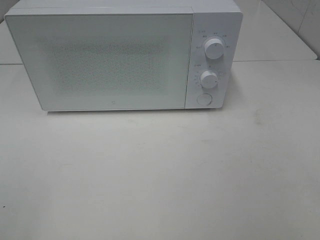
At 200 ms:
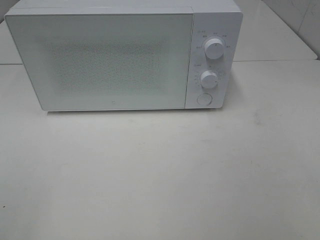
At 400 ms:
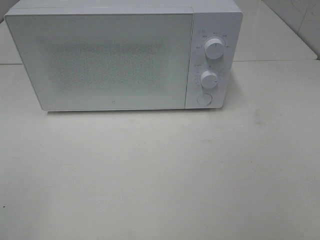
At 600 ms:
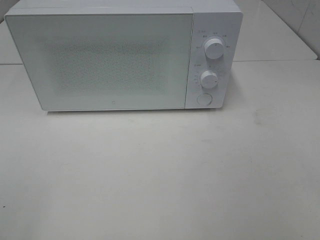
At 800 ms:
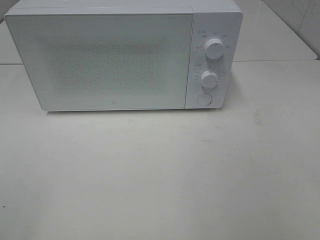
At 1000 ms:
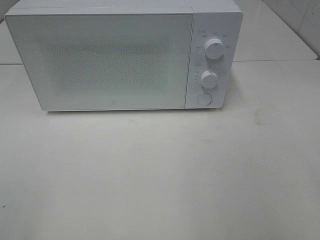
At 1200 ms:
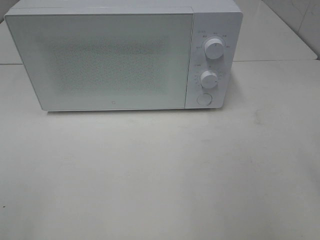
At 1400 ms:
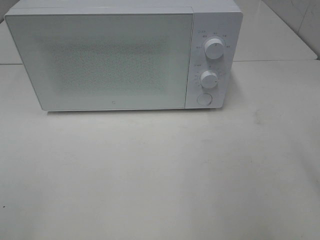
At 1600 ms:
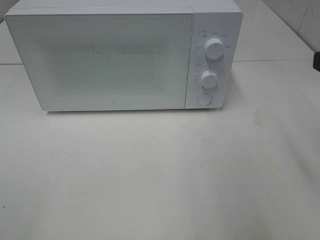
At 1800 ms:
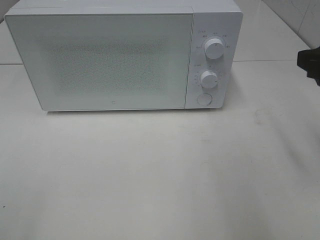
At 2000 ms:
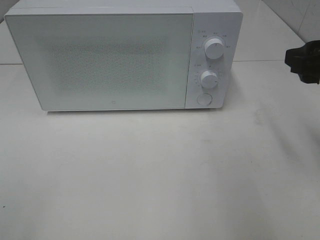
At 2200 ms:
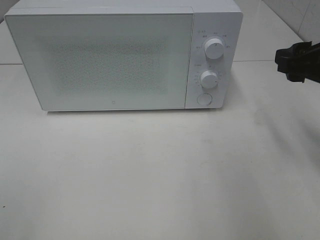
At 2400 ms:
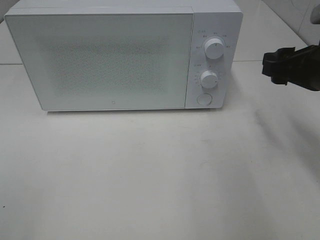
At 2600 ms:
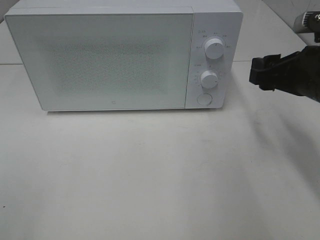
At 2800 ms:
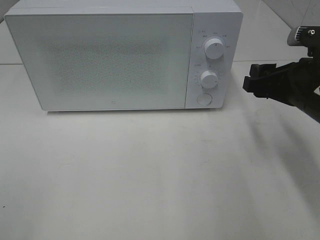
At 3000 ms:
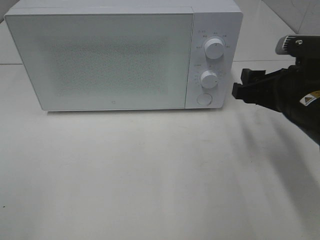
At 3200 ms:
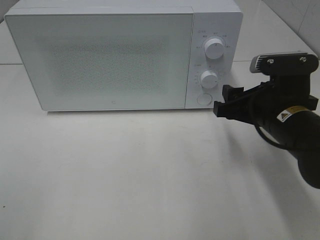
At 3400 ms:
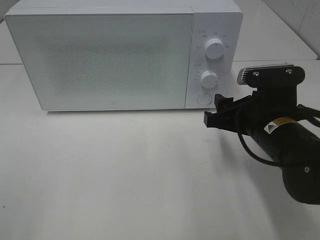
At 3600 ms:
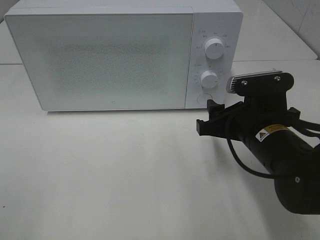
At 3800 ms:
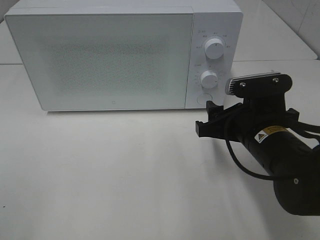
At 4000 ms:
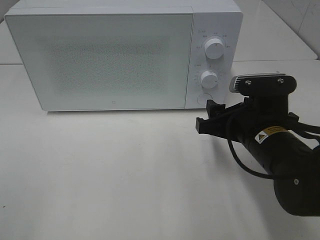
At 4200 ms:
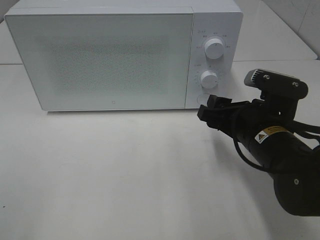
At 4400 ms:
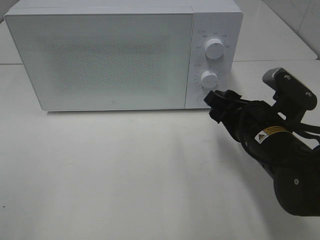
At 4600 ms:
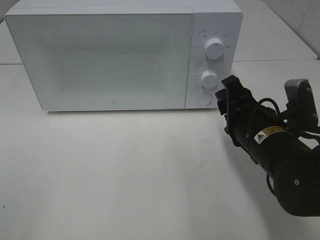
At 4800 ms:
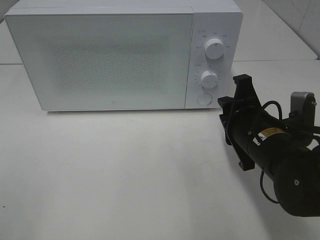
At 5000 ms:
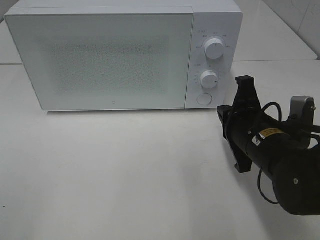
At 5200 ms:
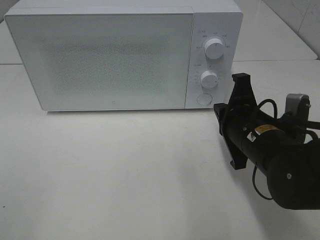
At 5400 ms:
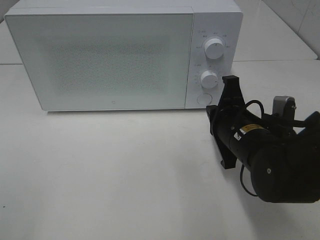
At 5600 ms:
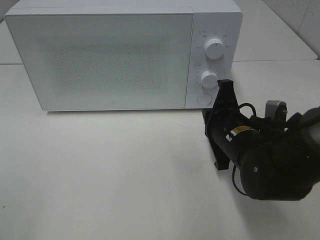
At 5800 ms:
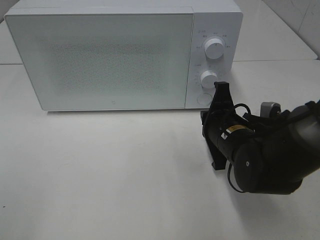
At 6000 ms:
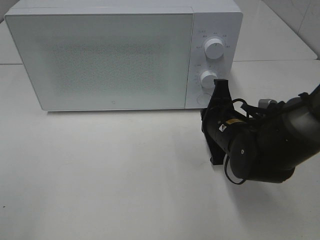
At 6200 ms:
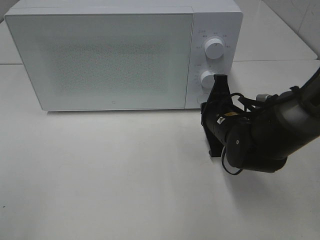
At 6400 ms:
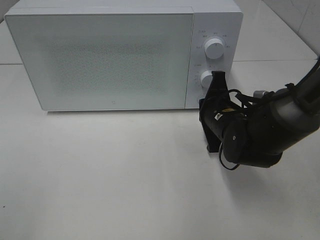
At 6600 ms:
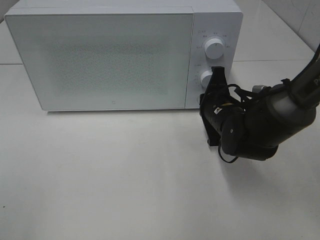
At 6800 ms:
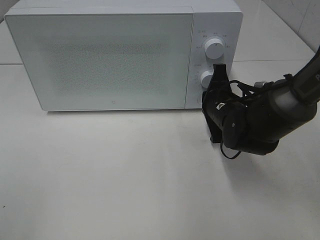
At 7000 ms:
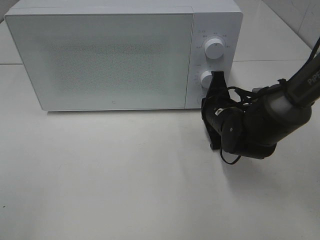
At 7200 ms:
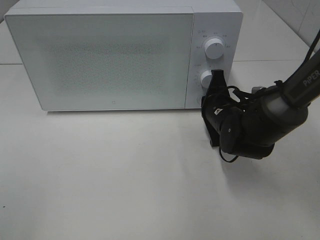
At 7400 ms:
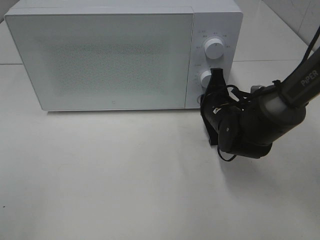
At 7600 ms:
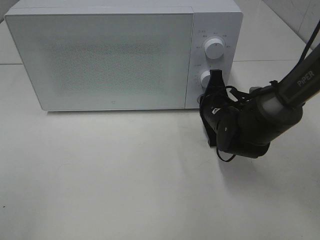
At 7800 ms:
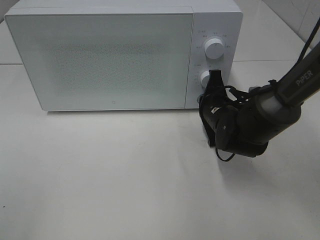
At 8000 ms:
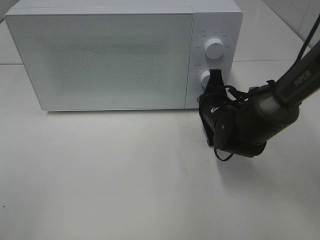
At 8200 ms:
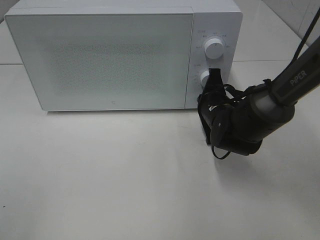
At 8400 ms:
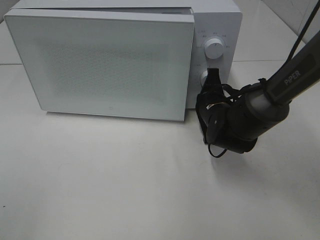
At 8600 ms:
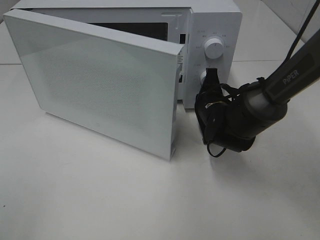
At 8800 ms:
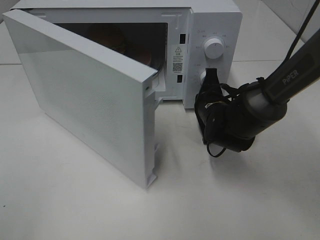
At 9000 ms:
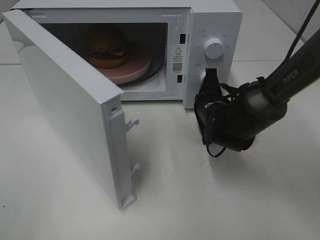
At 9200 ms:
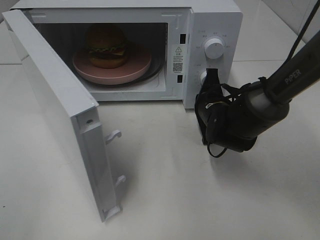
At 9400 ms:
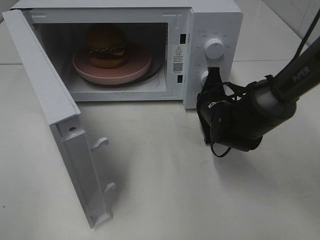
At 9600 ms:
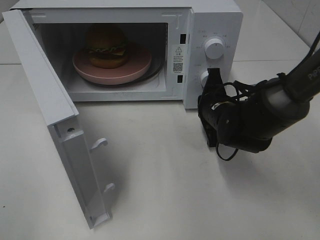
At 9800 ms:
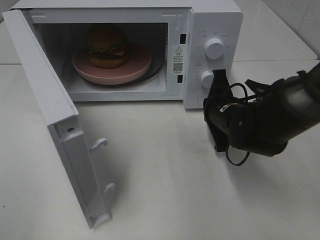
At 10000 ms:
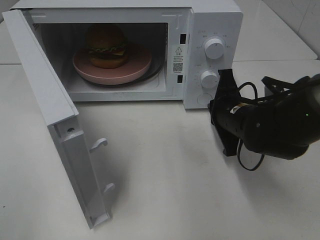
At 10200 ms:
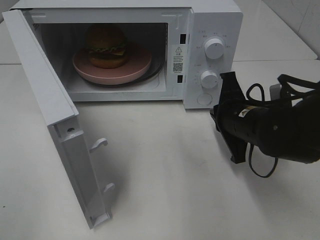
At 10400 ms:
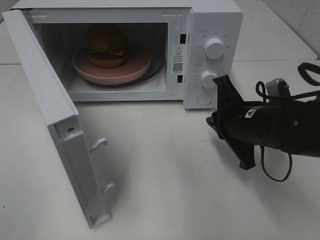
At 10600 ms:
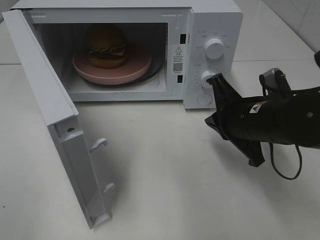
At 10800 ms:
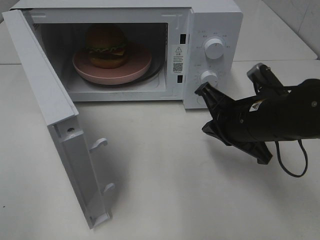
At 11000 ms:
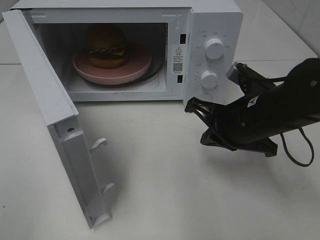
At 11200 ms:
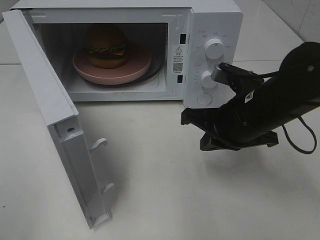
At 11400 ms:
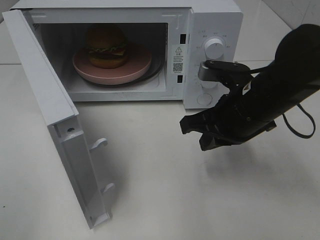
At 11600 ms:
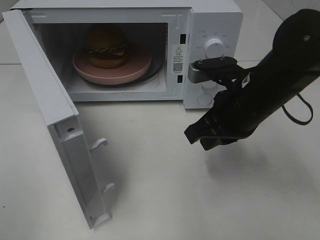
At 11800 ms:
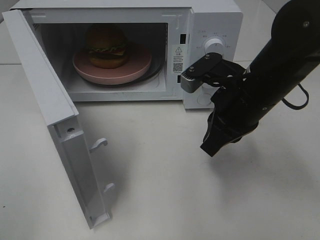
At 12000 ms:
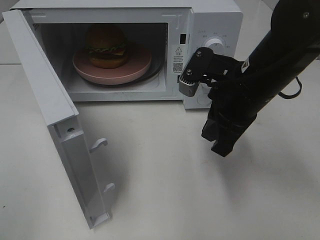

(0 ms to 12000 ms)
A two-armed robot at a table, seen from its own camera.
Task of the whole recording: Heat the burger.
Step, 0 ms - 9800 ms: Right hand: press the switch.
1600 ms - 3000 ms: The right gripper goes some 15 cm downward, forward and to the left.
3000 ms - 4400 ms: The right gripper changes place by about 5 cm.
4400 ms - 6000 ms: The right gripper moves forward, some 5 cm, and closes its fingers.
6000 ms - 7600 ms: The right gripper goes some 5 cm forward.
9000 ms - 10400 ms: The right gripper is displaced backward and upward by approximately 10 cm.
10400 ms - 12000 ms: The right gripper travels upward by approximately 5 cm.

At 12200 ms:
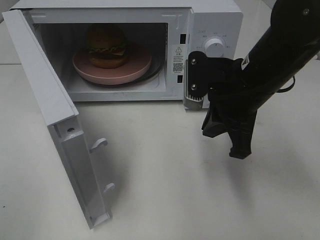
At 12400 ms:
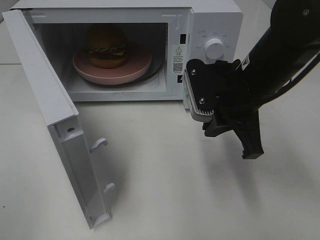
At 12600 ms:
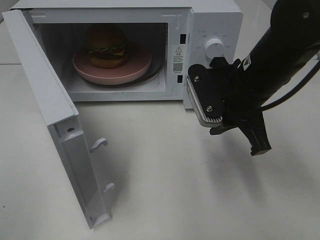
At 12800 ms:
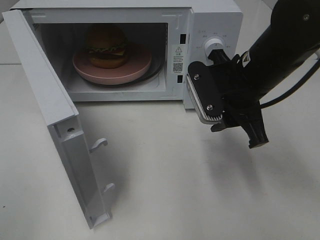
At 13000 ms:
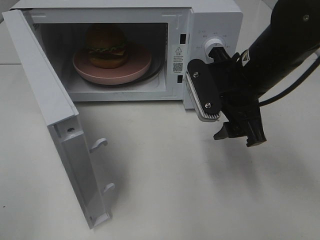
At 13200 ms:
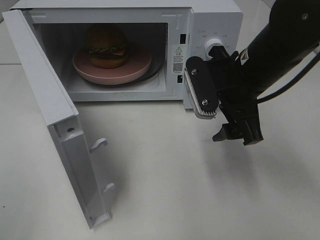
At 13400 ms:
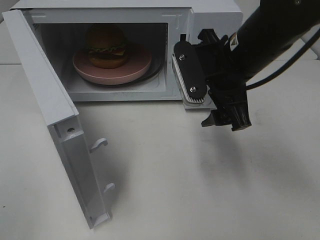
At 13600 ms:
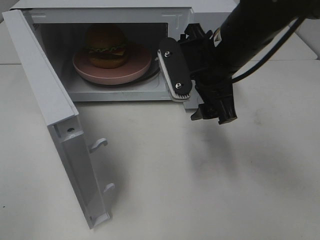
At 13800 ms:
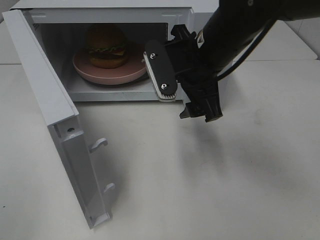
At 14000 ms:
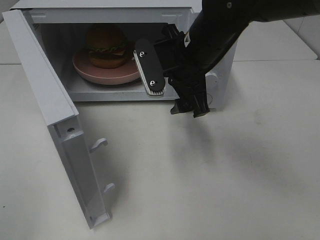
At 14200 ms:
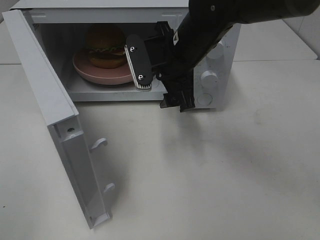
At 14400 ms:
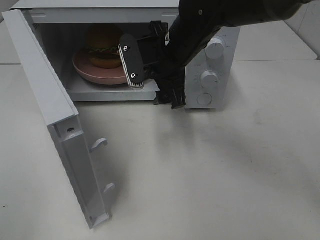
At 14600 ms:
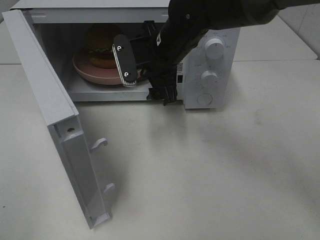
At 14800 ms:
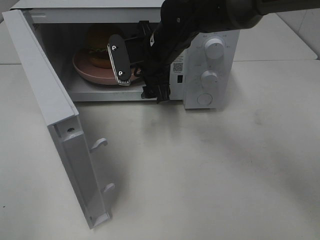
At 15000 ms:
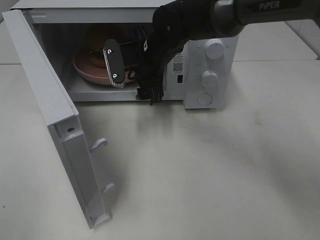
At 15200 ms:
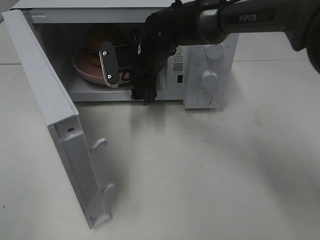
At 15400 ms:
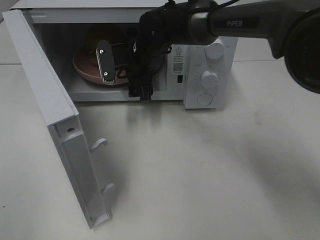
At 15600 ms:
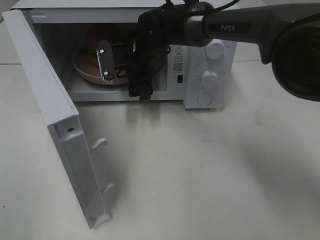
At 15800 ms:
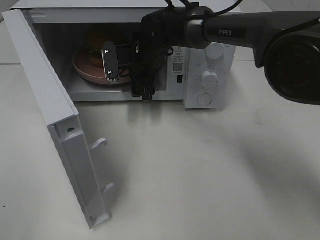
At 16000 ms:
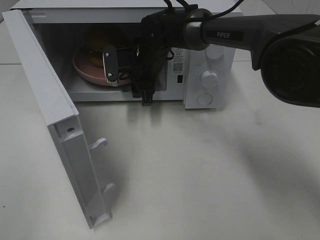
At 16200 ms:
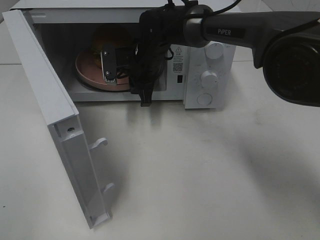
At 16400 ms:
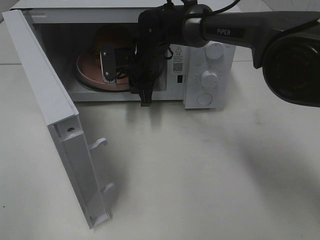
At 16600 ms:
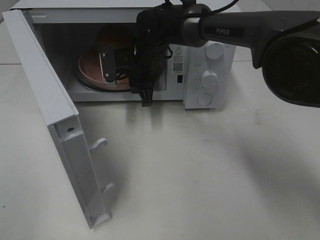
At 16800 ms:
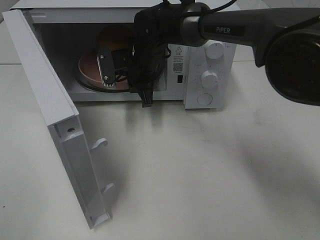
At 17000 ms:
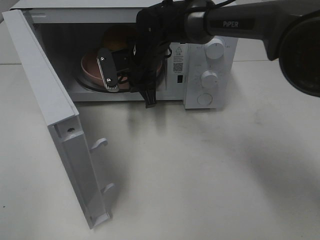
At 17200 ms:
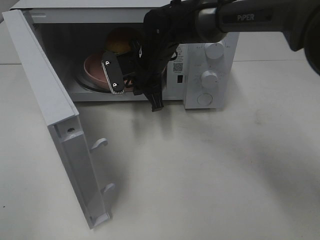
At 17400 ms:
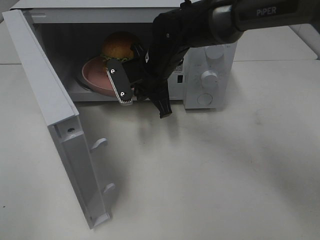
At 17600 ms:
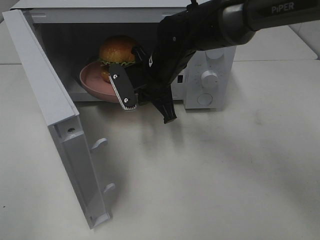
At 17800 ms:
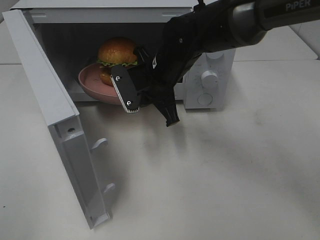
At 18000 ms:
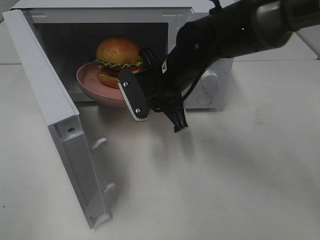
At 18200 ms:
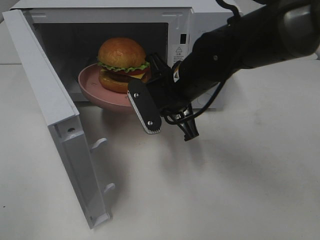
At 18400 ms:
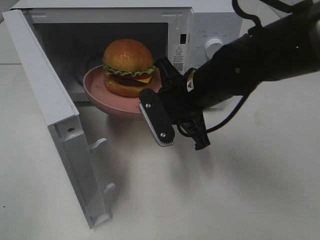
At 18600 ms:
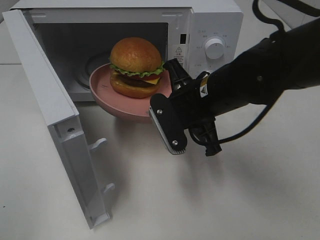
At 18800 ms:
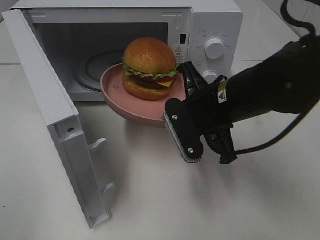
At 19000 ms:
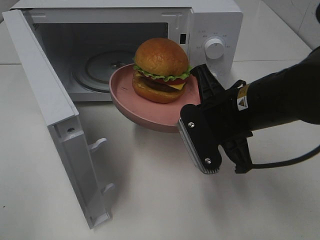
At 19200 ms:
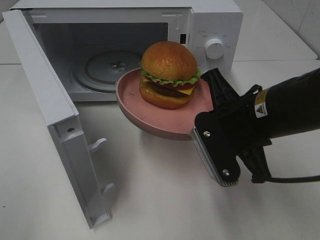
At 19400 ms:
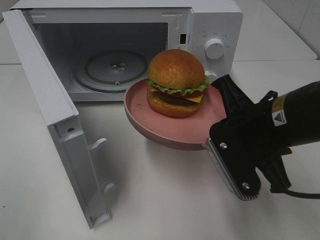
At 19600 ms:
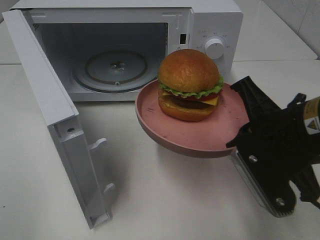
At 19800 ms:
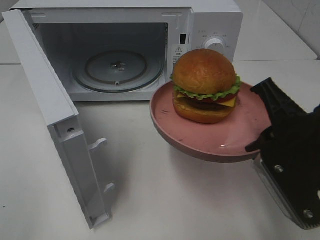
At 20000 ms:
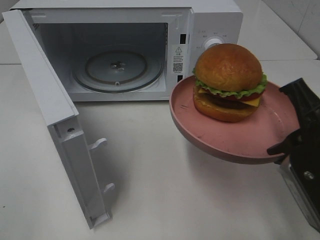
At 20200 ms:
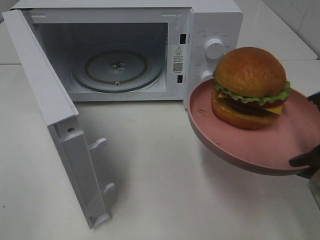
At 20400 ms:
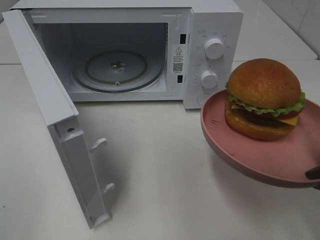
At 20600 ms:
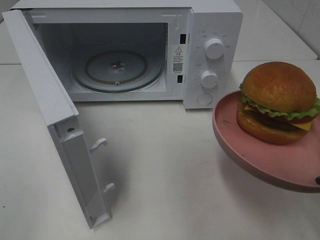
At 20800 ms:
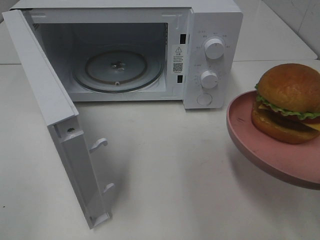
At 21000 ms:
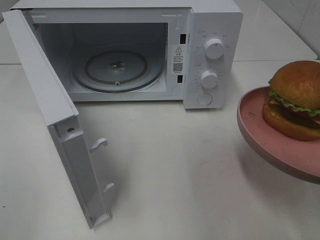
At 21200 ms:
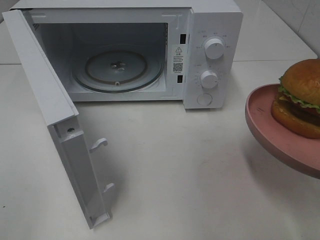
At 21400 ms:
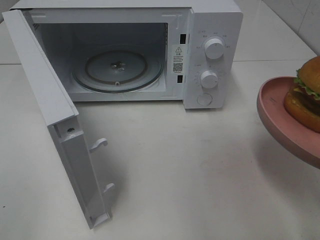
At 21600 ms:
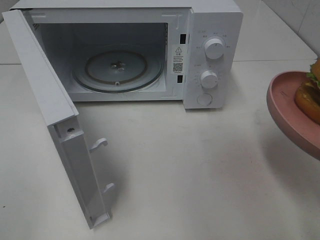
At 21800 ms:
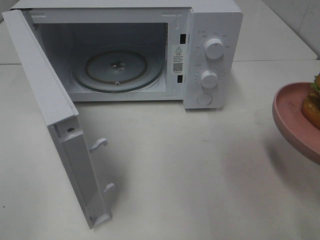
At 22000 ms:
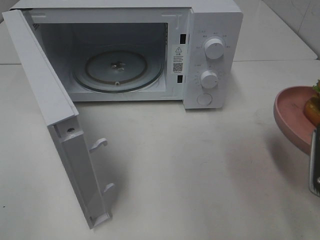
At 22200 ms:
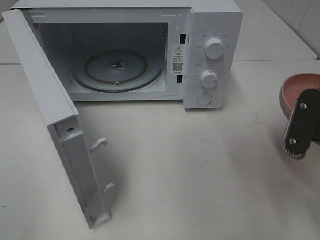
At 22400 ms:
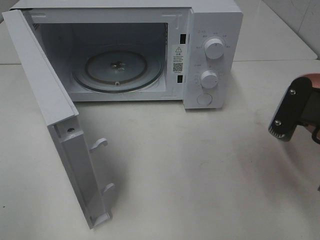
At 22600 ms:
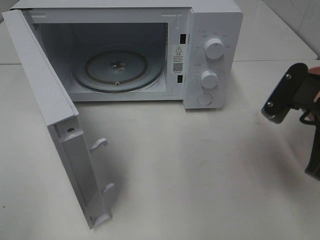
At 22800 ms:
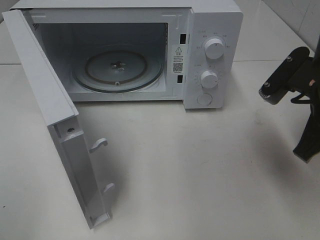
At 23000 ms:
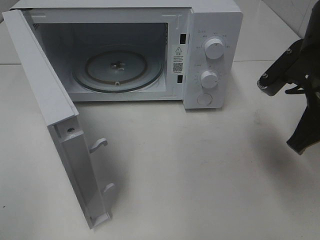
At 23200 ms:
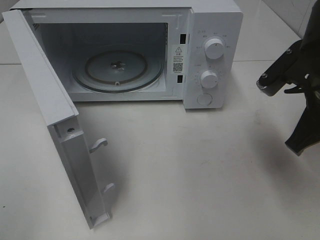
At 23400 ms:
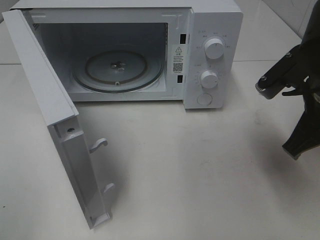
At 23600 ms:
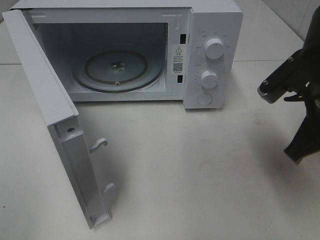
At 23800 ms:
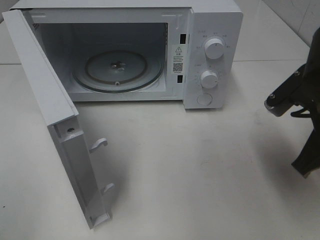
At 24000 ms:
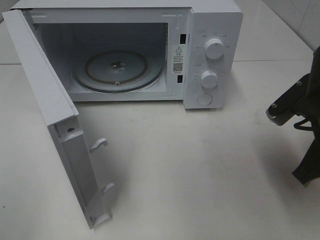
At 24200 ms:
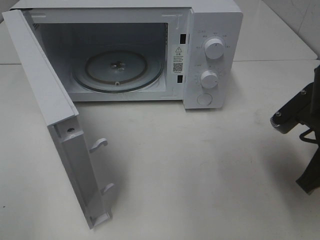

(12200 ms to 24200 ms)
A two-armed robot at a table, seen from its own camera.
Task of the whole recording: Heat the burger.
Step, 12200 ms - 16800 ms: Right hand: grab the plate with the hamburger.
12200 ms - 13800 ms: The right gripper heads to the left, covering approximately 5 cm, and opens its fingers.
13800 ms - 15200 ms: The right gripper is displaced forward, to the left and downward by some 15 cm.
15200 ms - 16600 ms: The right gripper closes its fingers.
16600 ms - 18200 ms: The right gripper goes approximately 15 cm backward and to the right.
18200 ms - 19800 ms: The right gripper moves backward and to the right, roughly 20 cm.
19800 ms - 21200 ms: The right gripper travels to the right and backward by some 10 cm.
21200 ms - 22600 ms: The right gripper moves forward, roughly 10 cm.
22600 ms - 24200 ms: The grippers make only small movements.
